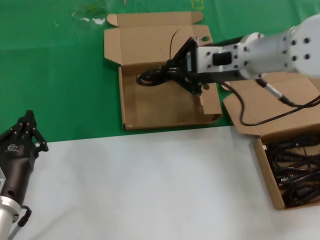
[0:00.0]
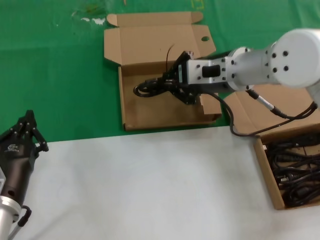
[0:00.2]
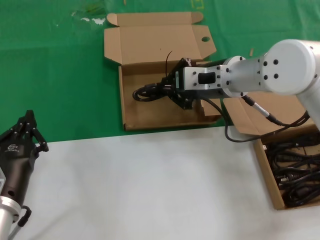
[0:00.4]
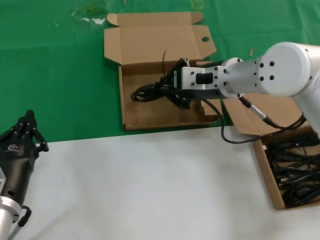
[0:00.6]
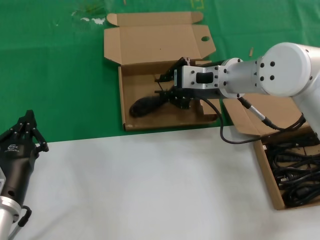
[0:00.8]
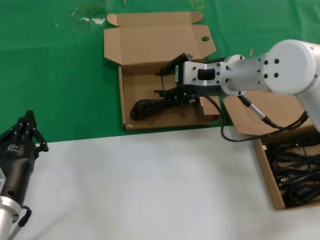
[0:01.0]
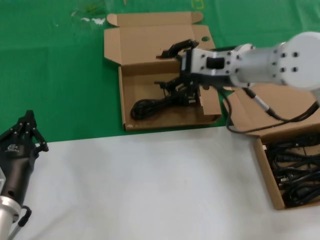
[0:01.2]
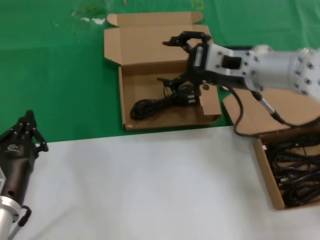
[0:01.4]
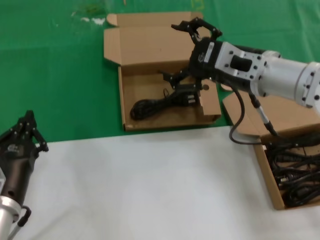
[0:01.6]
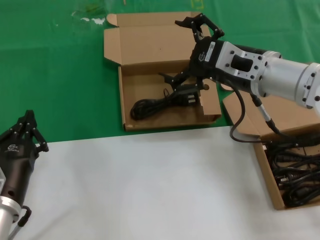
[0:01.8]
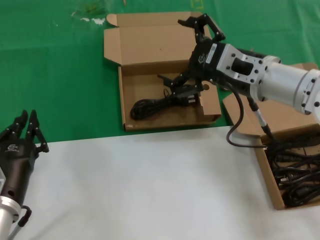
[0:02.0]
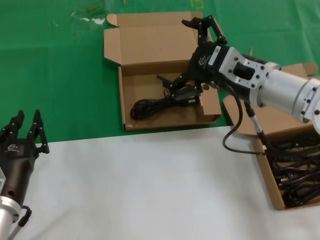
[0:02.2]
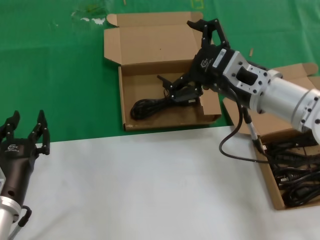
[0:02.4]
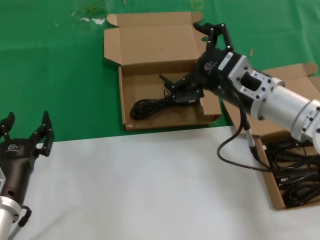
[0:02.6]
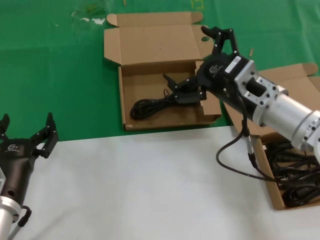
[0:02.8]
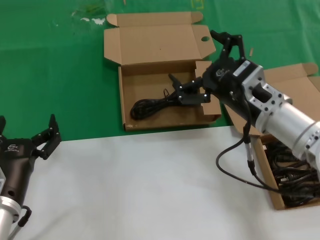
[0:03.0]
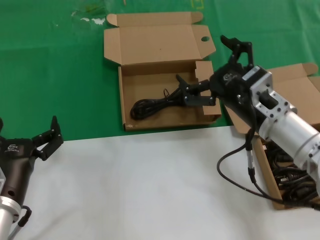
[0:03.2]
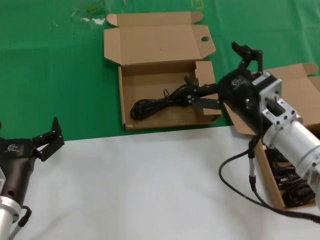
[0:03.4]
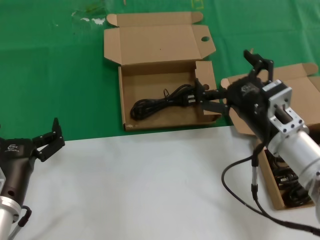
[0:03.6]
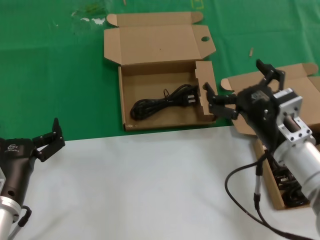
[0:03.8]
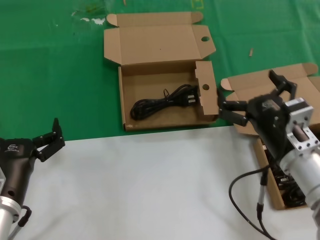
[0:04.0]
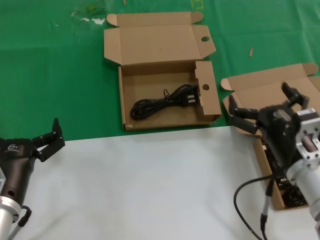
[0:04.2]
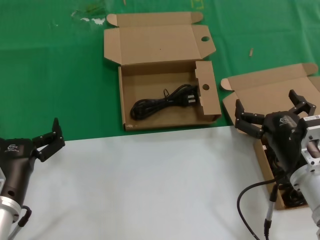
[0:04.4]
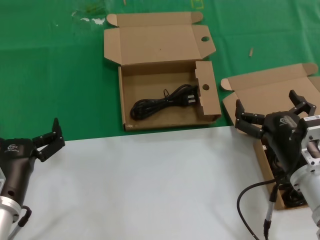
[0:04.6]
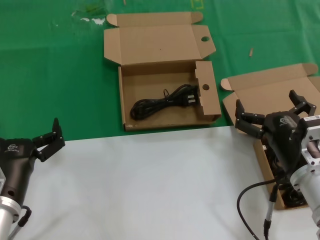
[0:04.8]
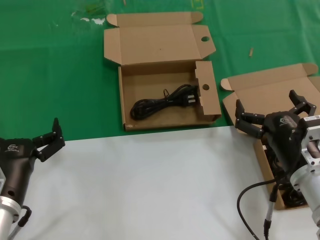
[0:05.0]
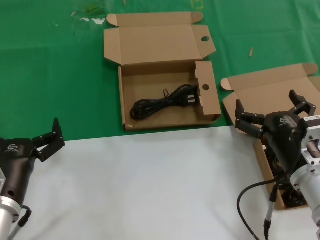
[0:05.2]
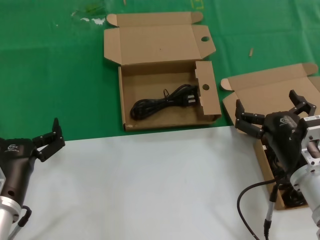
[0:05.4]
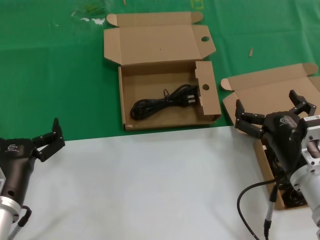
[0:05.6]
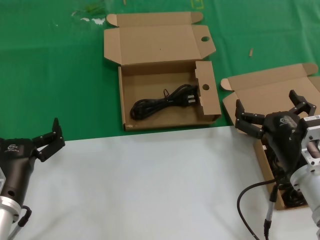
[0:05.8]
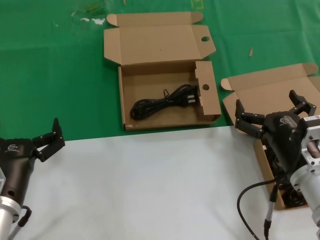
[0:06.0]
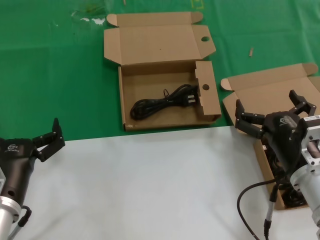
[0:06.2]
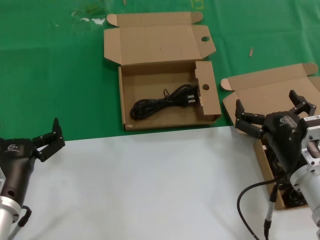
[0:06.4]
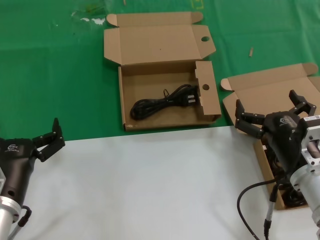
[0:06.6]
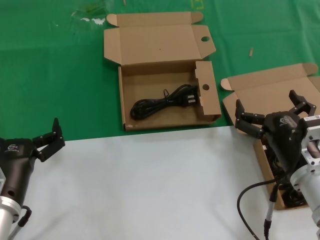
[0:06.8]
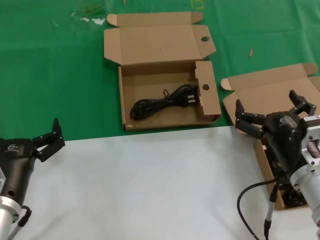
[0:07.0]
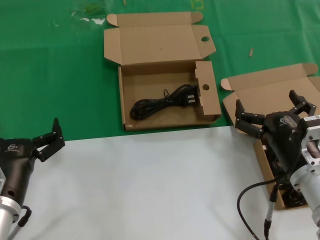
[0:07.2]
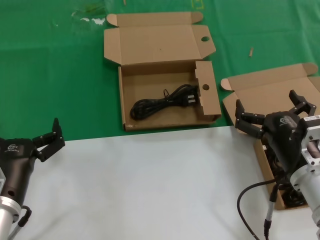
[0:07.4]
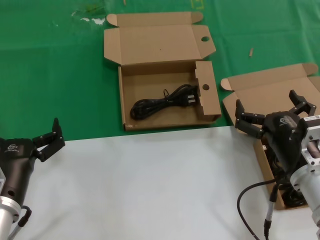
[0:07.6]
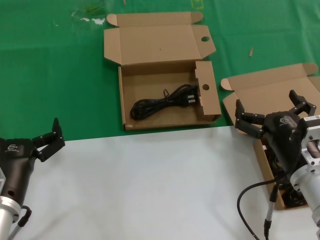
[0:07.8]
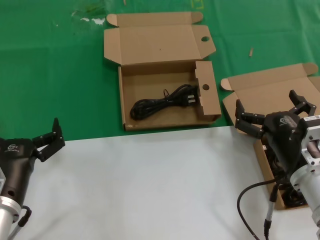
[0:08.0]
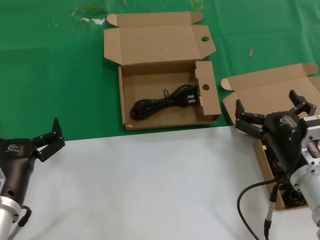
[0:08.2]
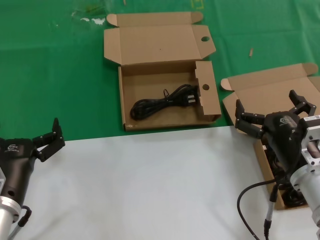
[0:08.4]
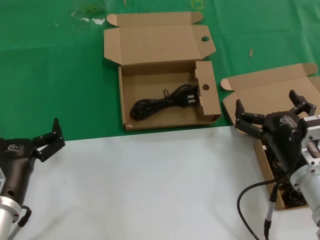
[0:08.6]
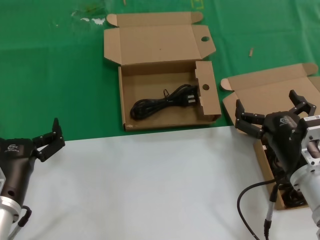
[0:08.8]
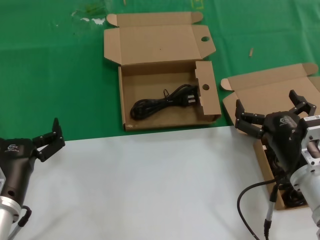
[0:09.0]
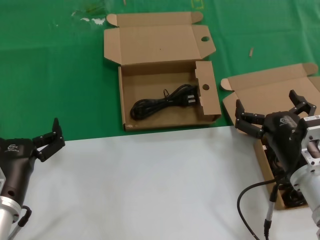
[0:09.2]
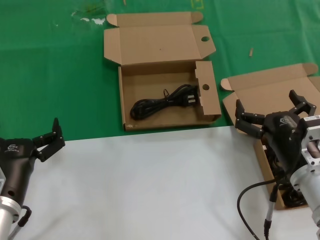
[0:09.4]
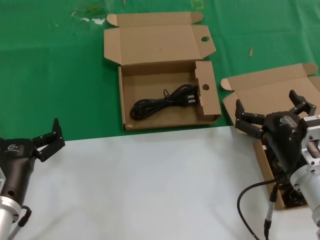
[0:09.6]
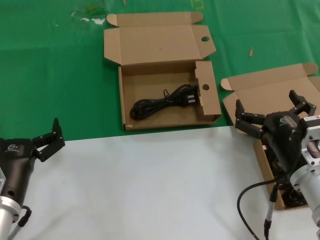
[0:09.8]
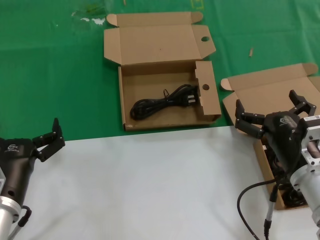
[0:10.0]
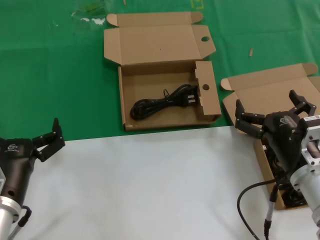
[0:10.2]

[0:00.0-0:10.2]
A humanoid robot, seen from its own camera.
Task of the whole recording: take the parts from the box containing them and put them into an empty box.
0:01.4 to 0:03.0: The right hand is displaced downward and backward by about 10 cm.
0:03.0 to 0:04.4: The right hand travels downward and backward by roughly 10 cm.
0:04.4 to 0:10.2: Both hands stay put.

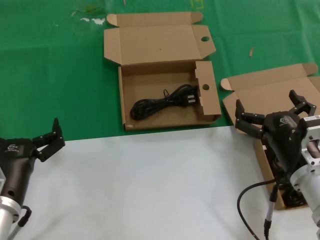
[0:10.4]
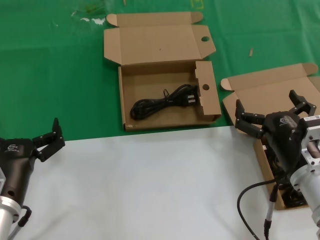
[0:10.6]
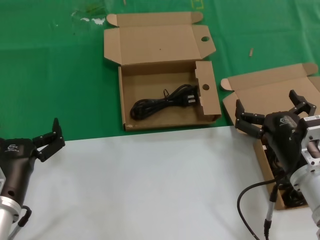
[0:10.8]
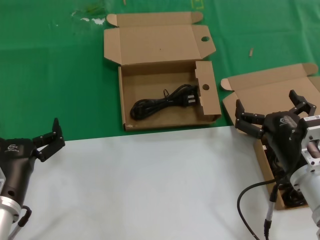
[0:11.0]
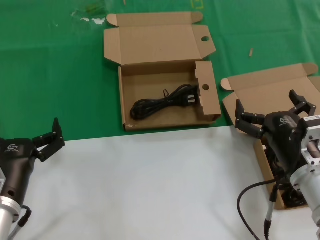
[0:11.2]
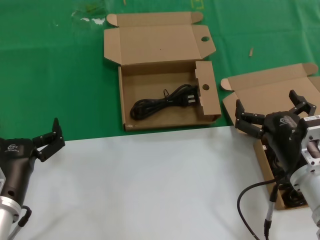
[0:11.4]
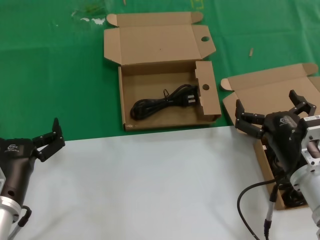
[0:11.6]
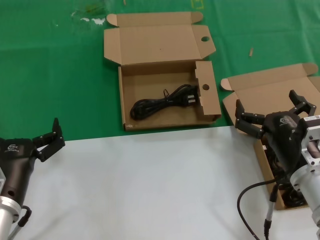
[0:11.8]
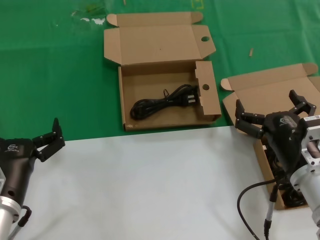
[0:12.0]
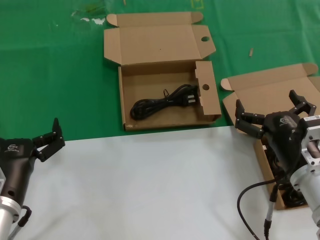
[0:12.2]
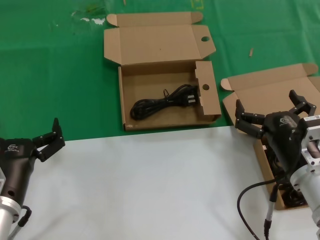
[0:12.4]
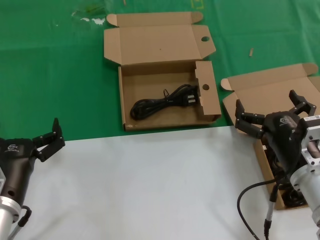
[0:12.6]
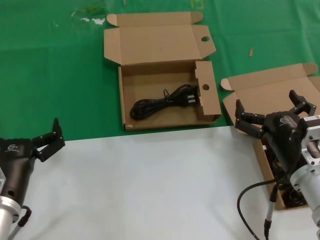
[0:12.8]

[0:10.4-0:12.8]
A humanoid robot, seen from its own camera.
Task of the whole recording: take the parts from the box containing them and put them into an empty box.
0:10.4 to 0:12.8: Neither hand changes place.

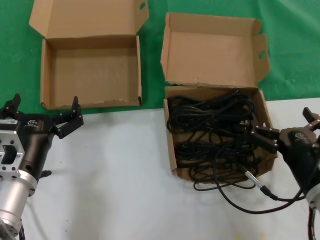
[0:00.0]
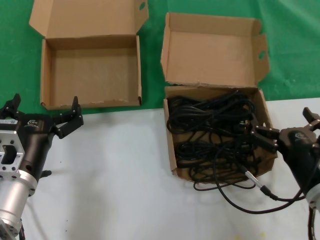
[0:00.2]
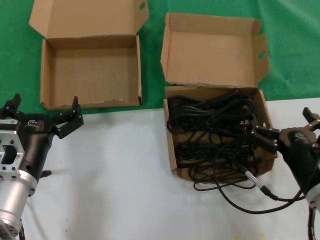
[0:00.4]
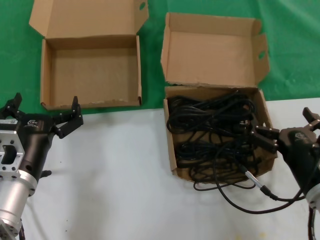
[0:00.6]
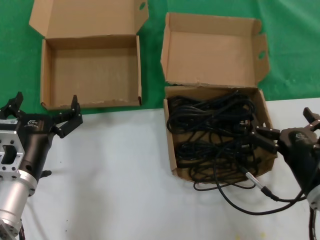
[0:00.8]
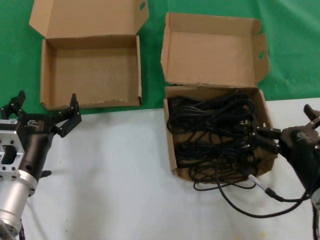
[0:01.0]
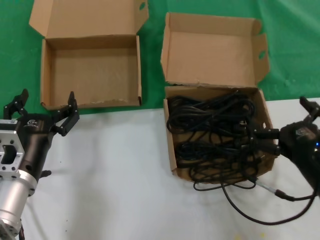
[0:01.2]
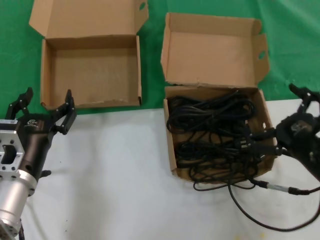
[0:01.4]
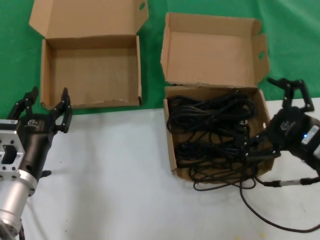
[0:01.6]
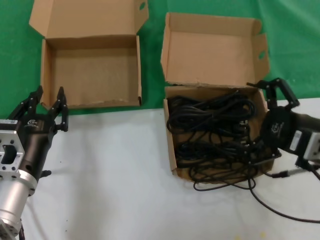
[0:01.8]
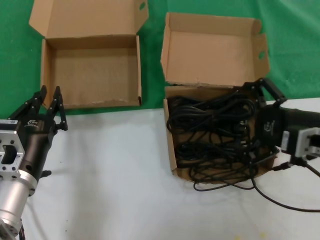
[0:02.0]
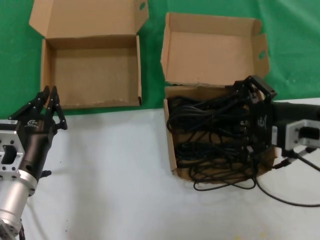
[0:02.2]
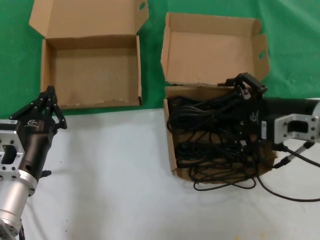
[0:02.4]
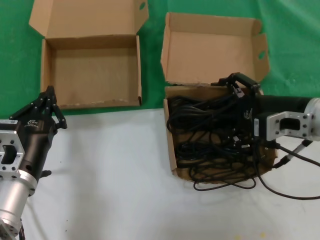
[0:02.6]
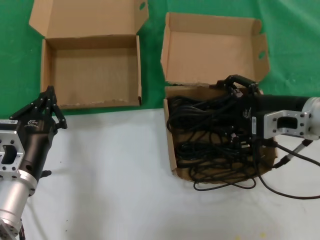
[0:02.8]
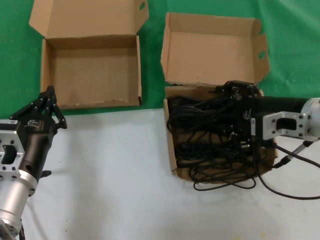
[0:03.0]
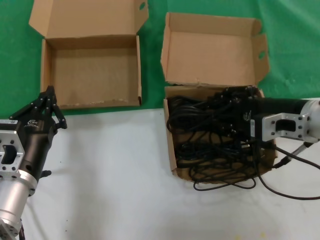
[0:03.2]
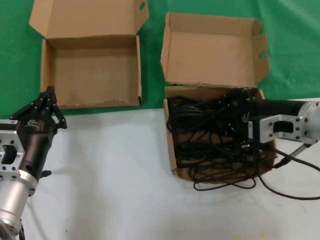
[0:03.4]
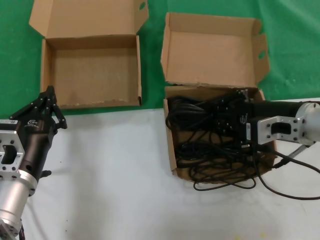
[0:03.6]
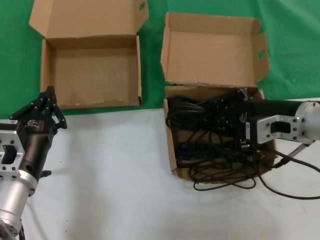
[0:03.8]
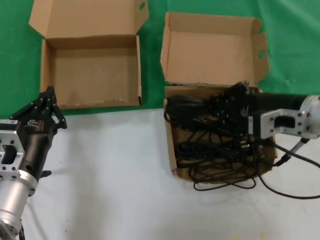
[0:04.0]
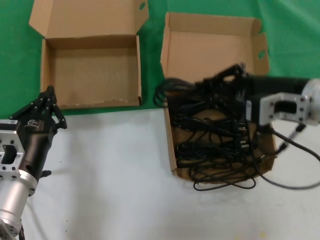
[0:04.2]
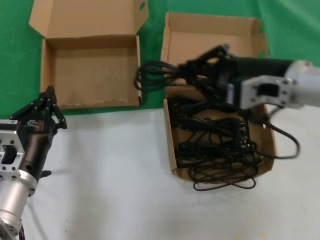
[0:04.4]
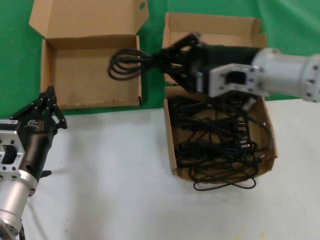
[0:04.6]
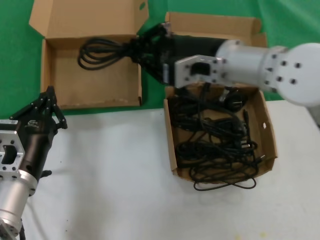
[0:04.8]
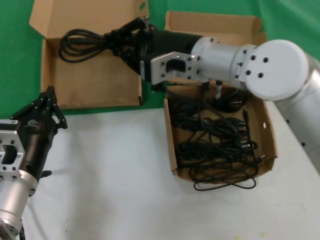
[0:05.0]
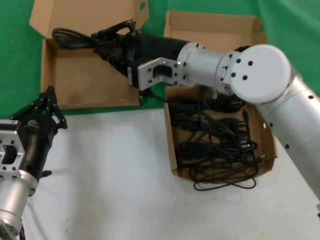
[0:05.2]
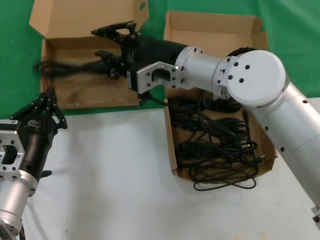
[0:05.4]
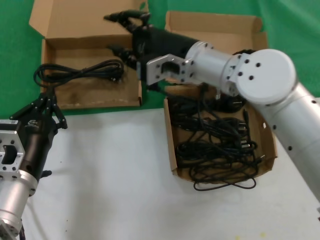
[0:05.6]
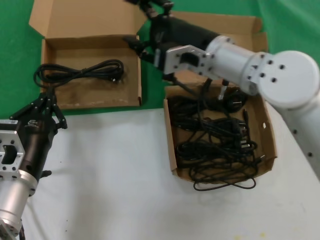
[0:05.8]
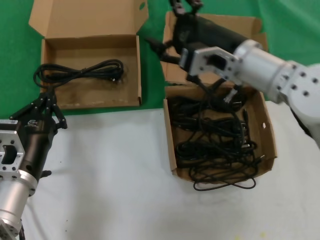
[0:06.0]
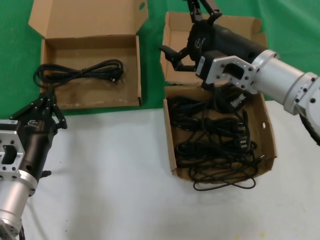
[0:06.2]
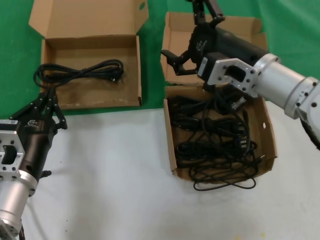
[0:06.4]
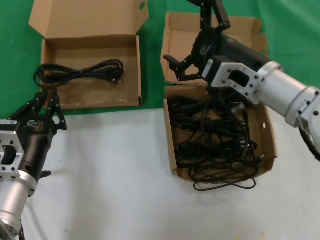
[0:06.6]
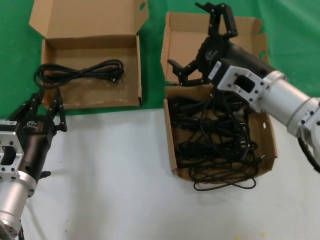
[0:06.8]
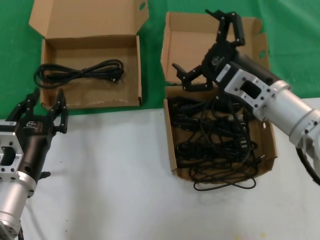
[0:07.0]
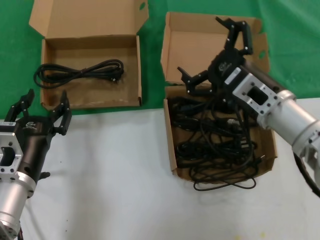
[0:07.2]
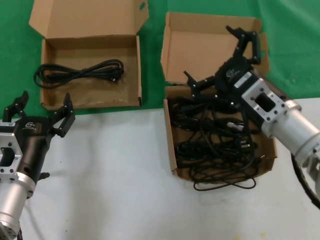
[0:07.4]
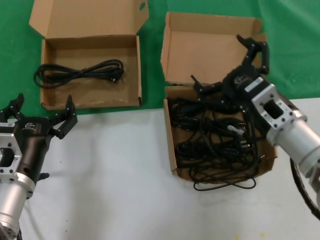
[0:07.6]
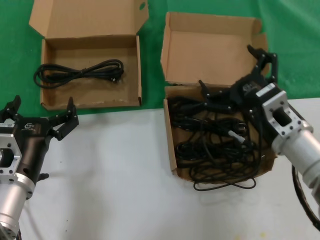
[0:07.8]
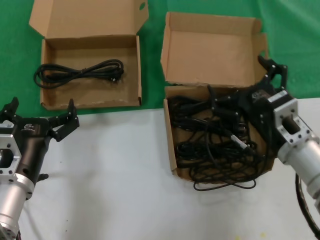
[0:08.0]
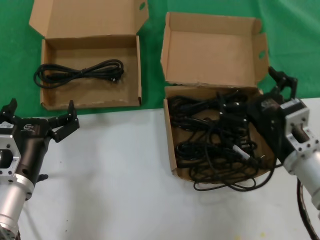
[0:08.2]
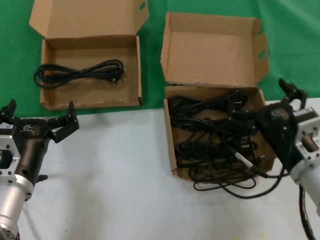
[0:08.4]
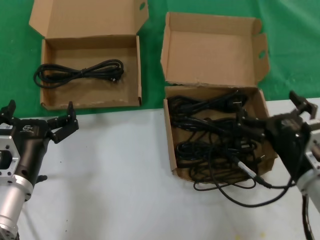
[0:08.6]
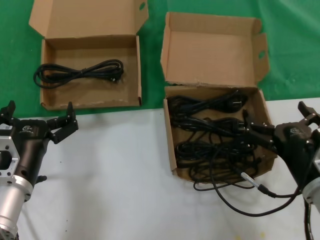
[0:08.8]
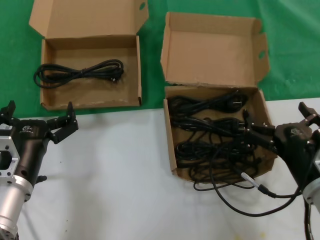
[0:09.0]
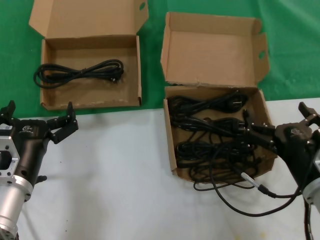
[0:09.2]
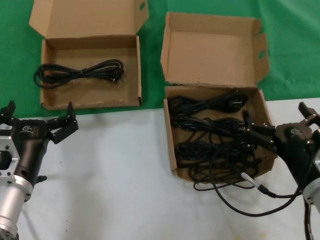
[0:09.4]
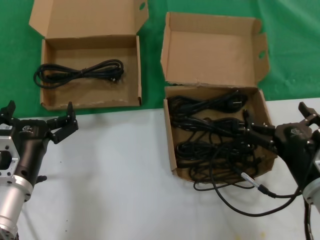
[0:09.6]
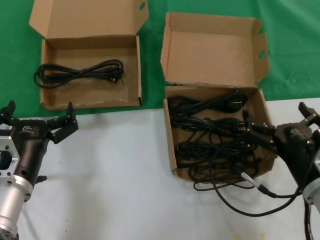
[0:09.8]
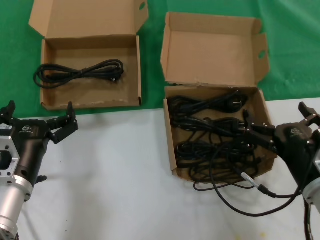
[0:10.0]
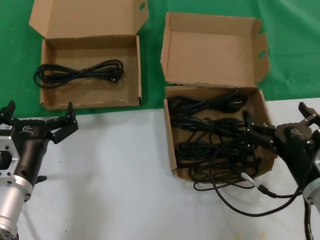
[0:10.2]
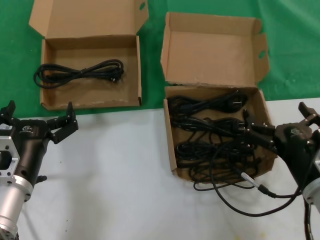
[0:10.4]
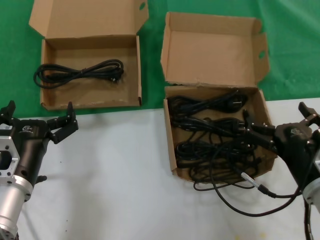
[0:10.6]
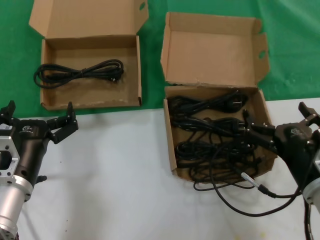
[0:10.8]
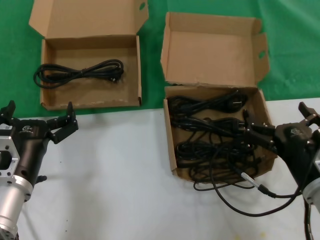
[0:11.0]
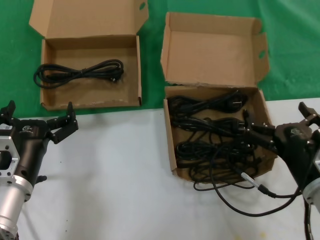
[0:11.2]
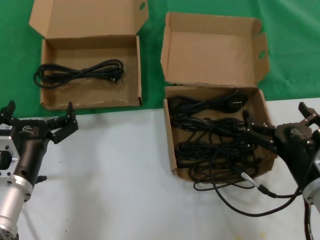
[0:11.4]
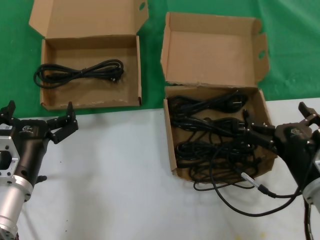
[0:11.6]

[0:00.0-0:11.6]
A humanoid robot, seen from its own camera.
Task of the whole recording: take the parts from the box containing them and put them into an empty box.
Step, 0:00.0 to 0:03.6: Grasp the data cable.
Step, 0:03.8 to 0:05.4: Place the data cable in the another box.
0:00.0 to 0:01.4: The right hand heads upward, covering some 5 cm.
0:01.4 to 0:02.8: The right hand is displaced forward and upward by about 15 cm.
0:02.8 to 0:04.4: The right hand heads upward and to the left, covering some 10 cm.
0:04.4 to 0:05.8: The right hand moves to the left and forward, about 15 cm.
0:05.8 to 0:07.2: The right hand travels to the right, downward and backward by some 15 cm.
0:07.2 to 0:08.8: The right hand is displaced downward, backward and to the right by some 15 cm.
0:08.8 to 0:11.6: Both hands stay put.
